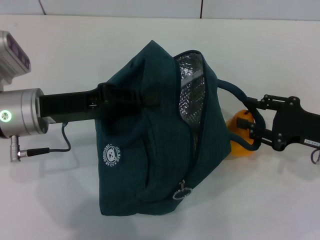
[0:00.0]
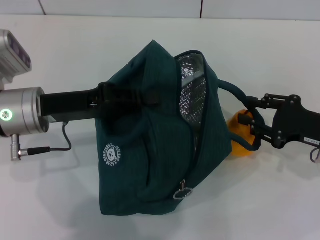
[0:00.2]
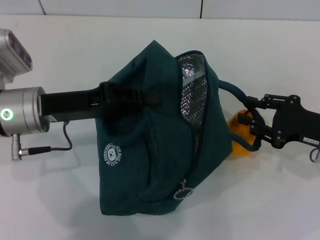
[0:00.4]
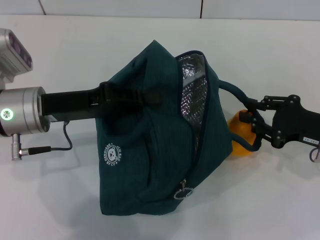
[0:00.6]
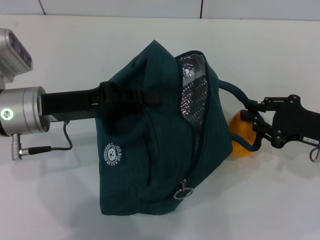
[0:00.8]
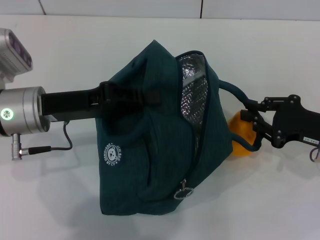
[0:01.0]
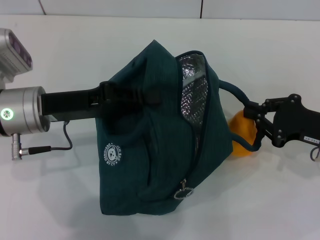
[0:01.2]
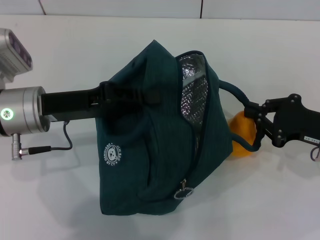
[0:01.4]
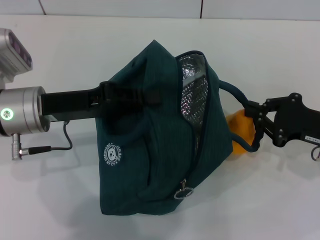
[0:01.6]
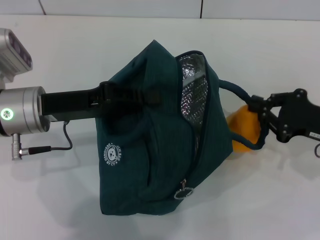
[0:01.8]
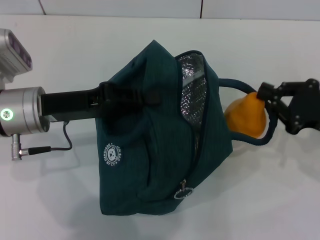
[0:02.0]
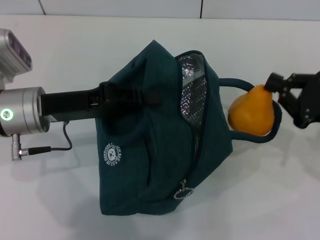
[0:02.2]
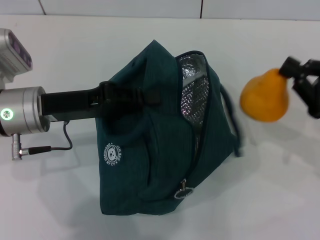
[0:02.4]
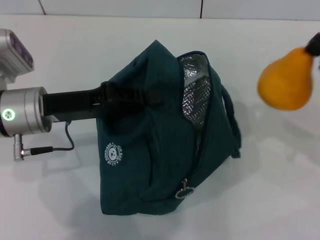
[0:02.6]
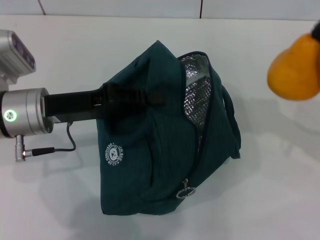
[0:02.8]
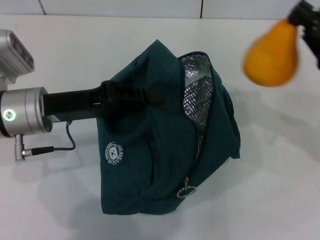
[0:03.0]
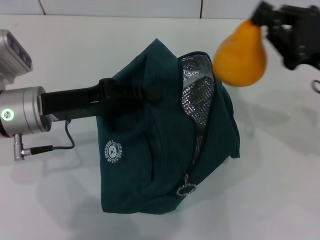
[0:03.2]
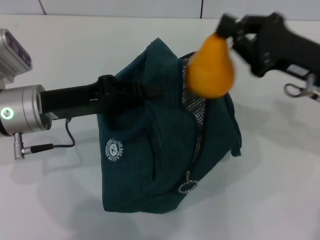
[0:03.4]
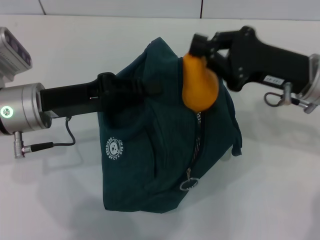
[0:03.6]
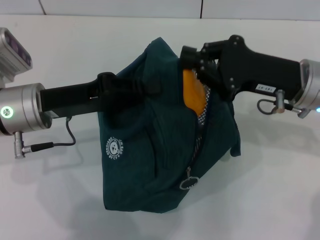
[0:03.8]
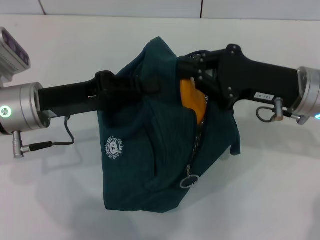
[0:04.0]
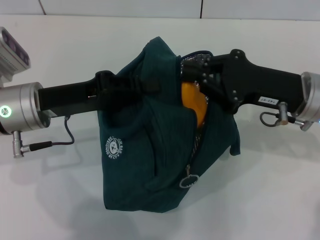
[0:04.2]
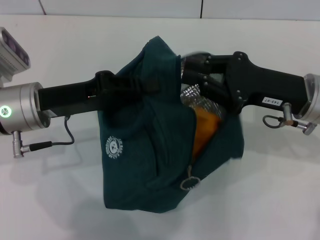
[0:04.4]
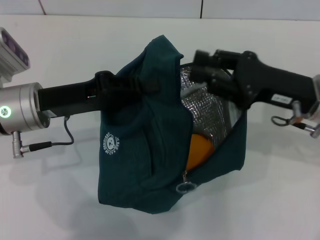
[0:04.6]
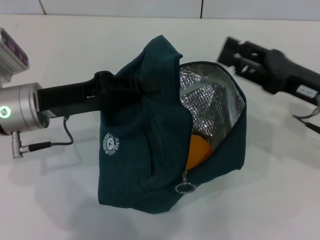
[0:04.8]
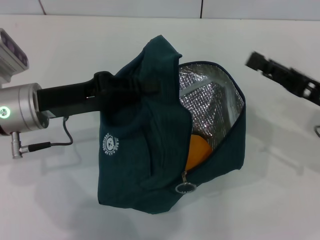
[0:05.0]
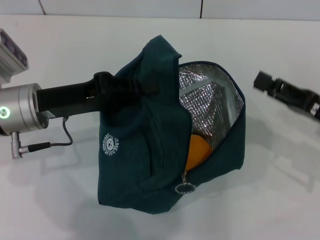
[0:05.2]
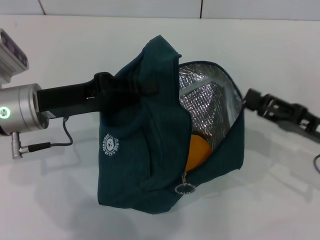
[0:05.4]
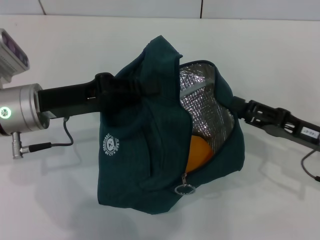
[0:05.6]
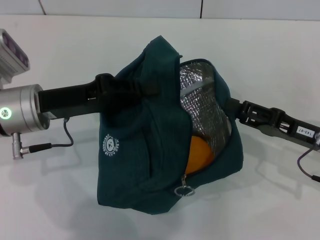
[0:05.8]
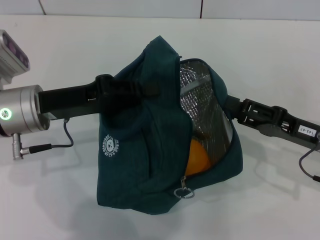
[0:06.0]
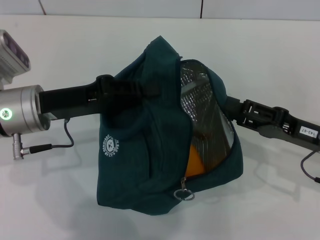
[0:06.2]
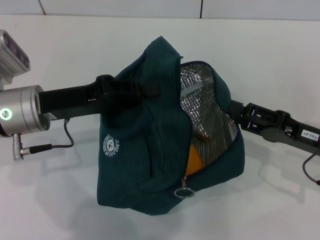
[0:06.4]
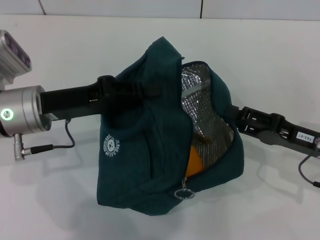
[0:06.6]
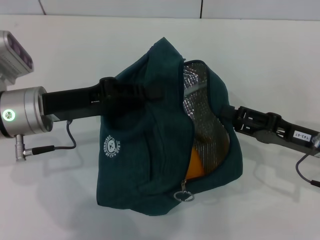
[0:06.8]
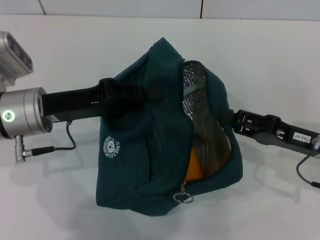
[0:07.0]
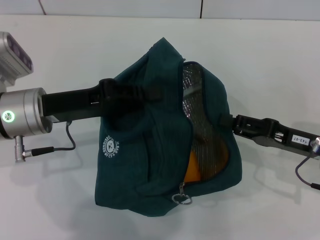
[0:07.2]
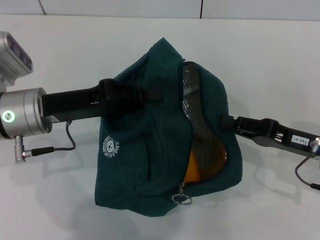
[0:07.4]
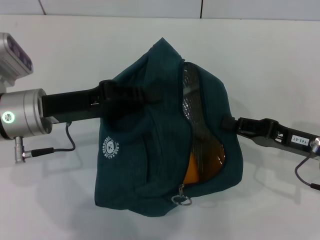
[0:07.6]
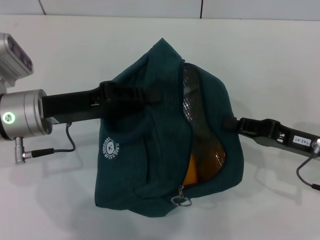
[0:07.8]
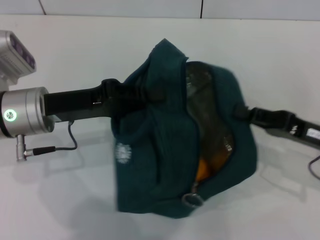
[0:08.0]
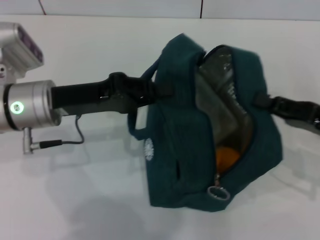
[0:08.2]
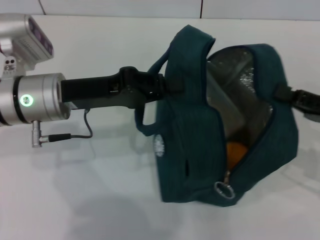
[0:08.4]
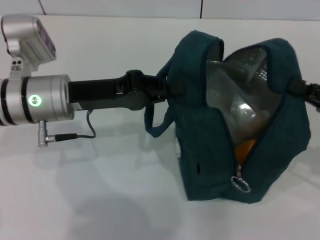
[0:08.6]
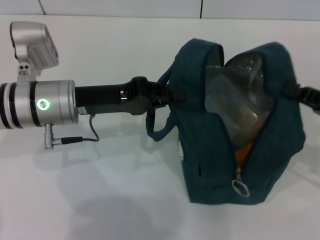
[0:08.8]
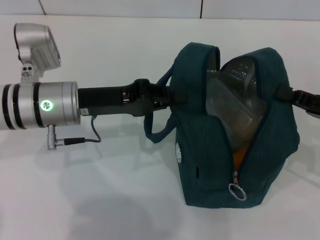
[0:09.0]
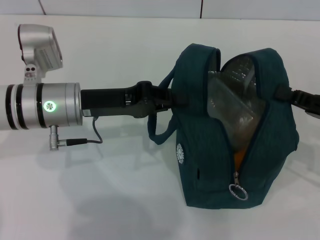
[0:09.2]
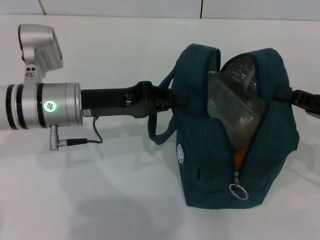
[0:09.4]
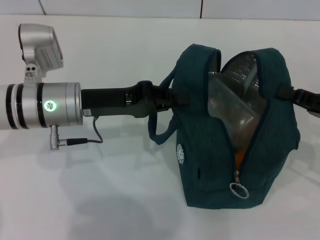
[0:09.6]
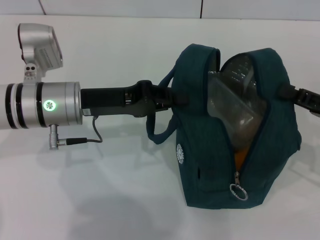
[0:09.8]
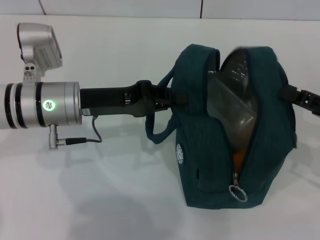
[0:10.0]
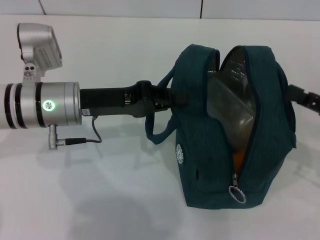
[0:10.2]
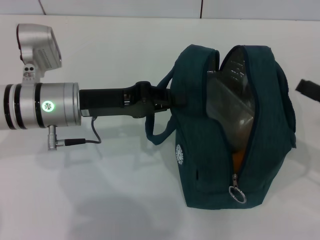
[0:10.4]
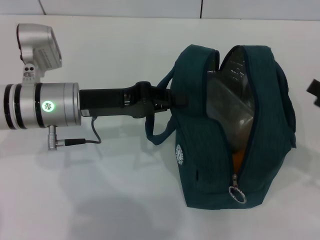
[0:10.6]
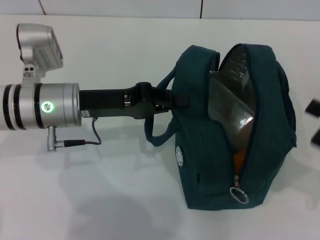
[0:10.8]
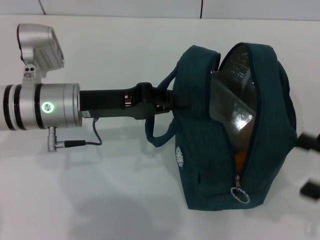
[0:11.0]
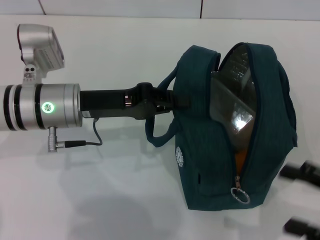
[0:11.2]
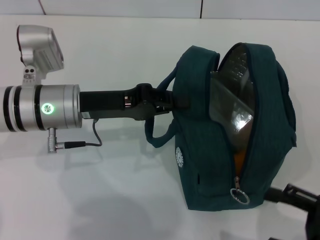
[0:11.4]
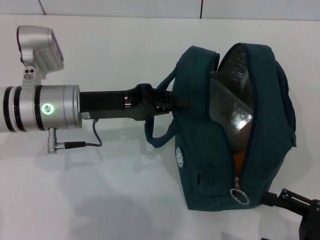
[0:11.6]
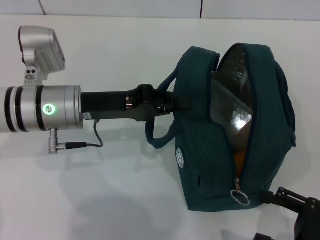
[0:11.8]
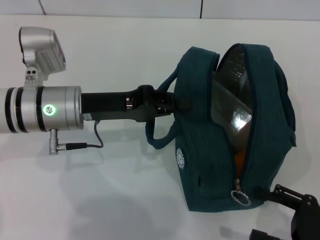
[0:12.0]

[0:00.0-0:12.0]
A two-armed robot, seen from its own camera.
Step, 0:04.6 to 0:10.2: Hold the lunch bag with your right hand.
0:00.0 to 0:01.6: The right gripper closes.
0:01.6 to 0:03.0: The right gripper is displaced upward by approximately 5 cm.
0:03.0 to 0:04.4: The right gripper shifts some 10 cm to the left.
0:04.4 to 0:06.0: The right gripper moves downward and to the right, about 10 cm, and opens up.
0:06.0 to 0:07.6: The right gripper closes its fingers.
0:07.6 to 0:09.0: The right gripper moves to the right, some 5 cm.
0:09.0 to 0:10.4: The right gripper opens.
0:10.4 to 0:12.0: The right gripper shifts about 10 cm backward and downward.

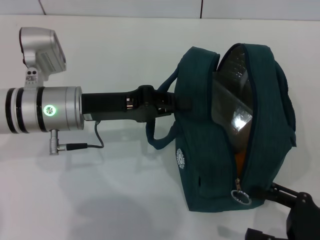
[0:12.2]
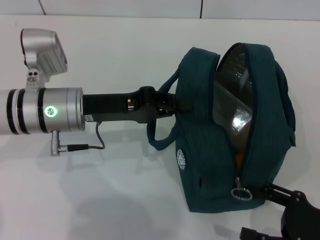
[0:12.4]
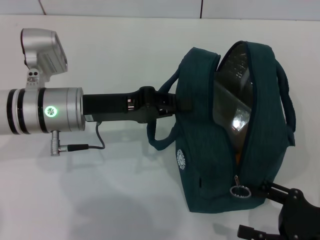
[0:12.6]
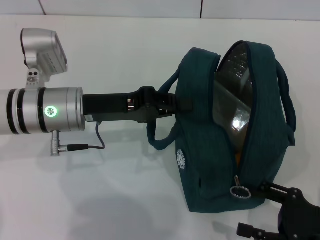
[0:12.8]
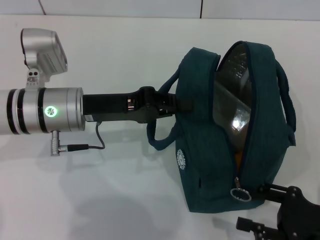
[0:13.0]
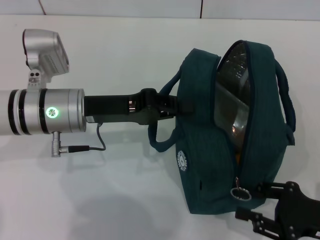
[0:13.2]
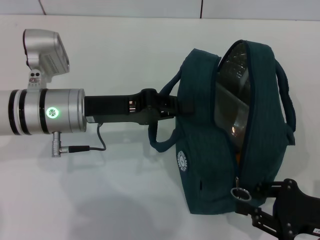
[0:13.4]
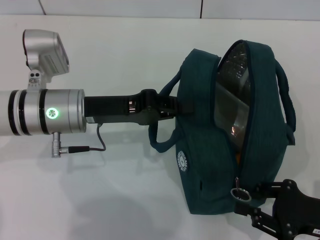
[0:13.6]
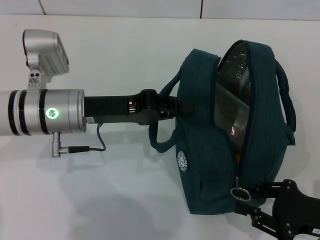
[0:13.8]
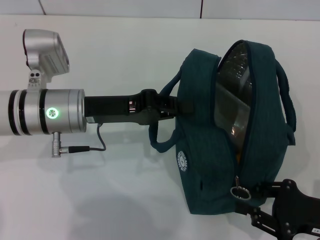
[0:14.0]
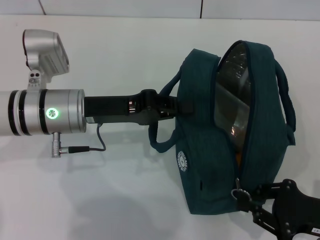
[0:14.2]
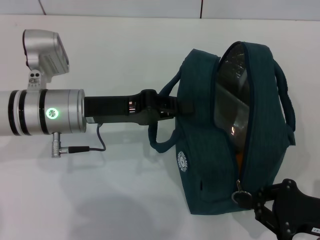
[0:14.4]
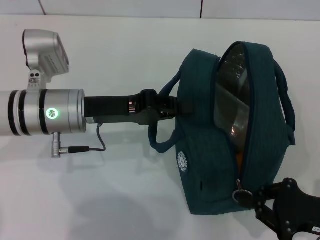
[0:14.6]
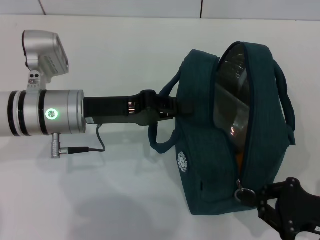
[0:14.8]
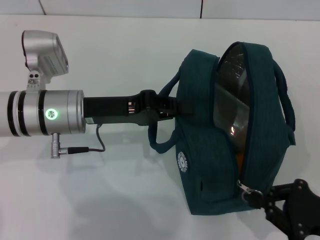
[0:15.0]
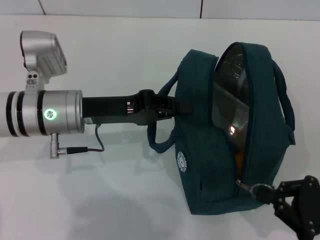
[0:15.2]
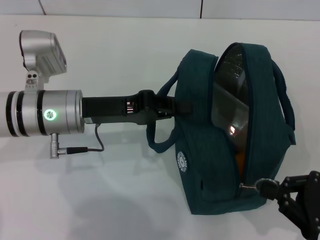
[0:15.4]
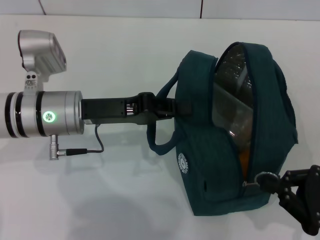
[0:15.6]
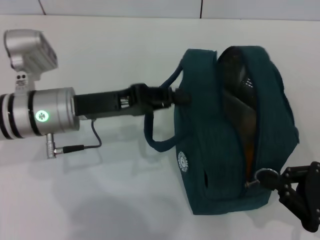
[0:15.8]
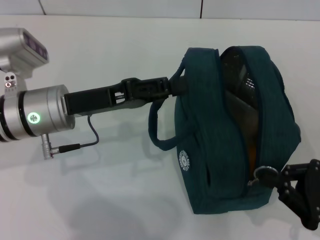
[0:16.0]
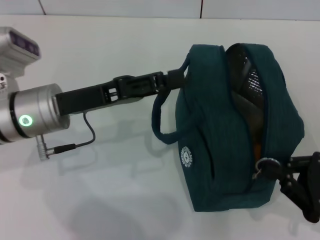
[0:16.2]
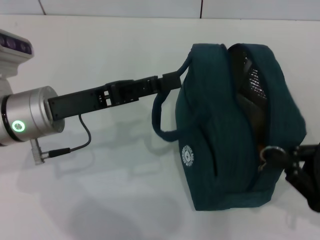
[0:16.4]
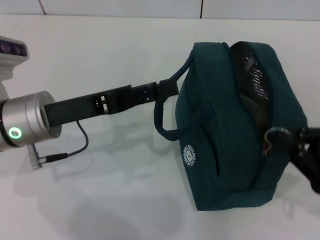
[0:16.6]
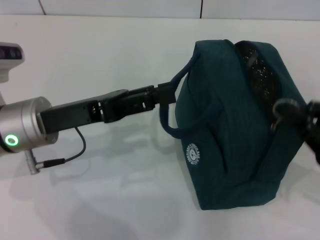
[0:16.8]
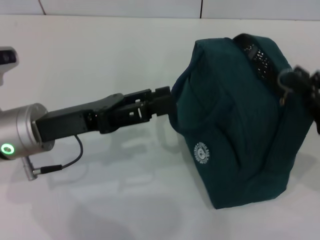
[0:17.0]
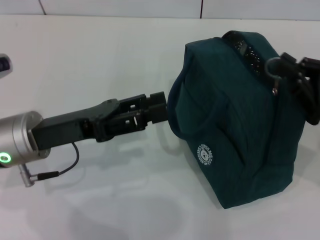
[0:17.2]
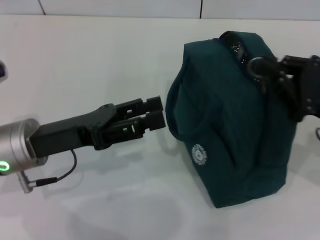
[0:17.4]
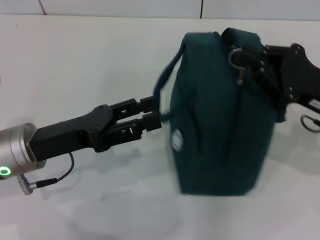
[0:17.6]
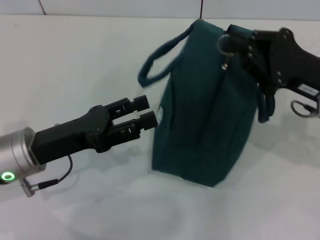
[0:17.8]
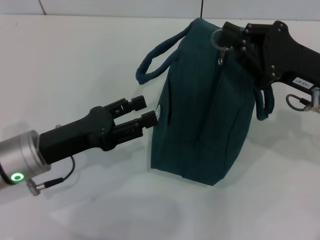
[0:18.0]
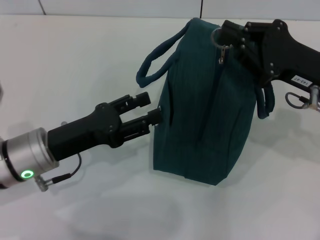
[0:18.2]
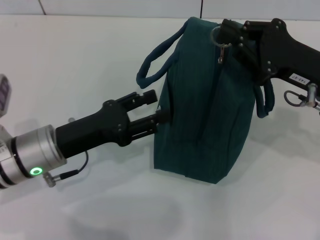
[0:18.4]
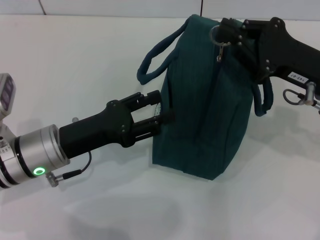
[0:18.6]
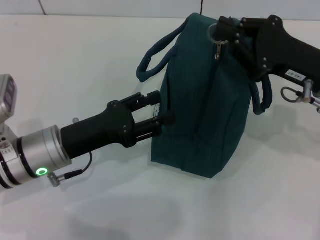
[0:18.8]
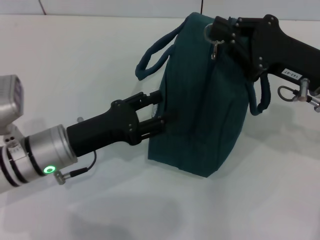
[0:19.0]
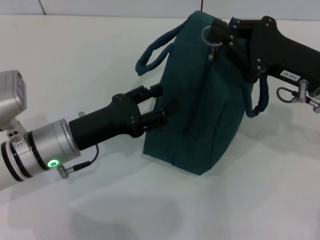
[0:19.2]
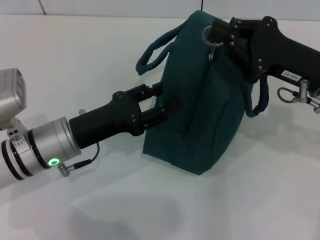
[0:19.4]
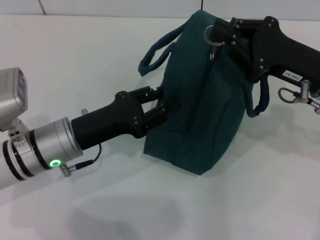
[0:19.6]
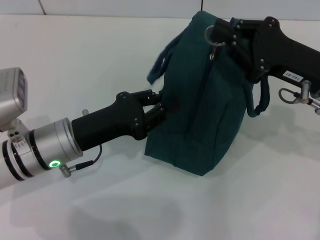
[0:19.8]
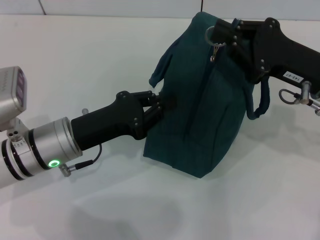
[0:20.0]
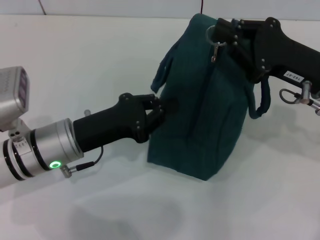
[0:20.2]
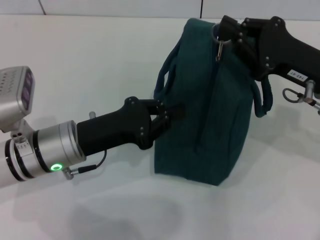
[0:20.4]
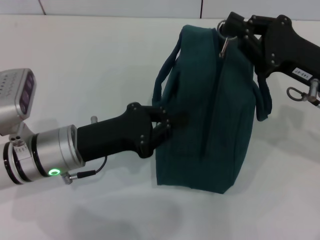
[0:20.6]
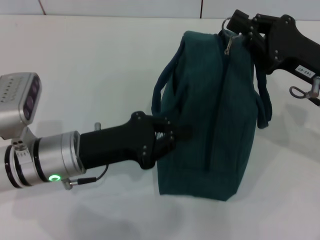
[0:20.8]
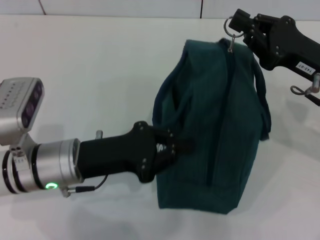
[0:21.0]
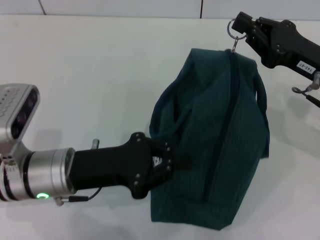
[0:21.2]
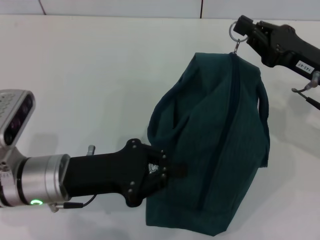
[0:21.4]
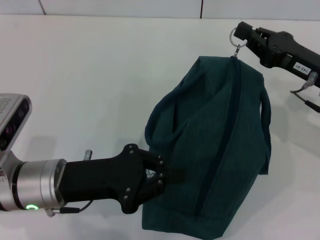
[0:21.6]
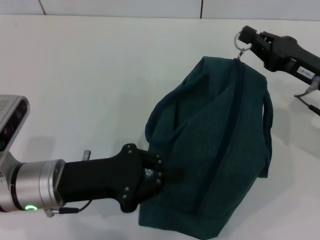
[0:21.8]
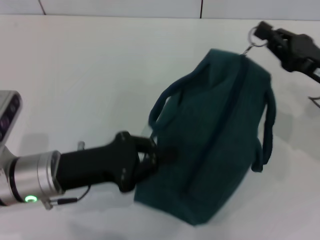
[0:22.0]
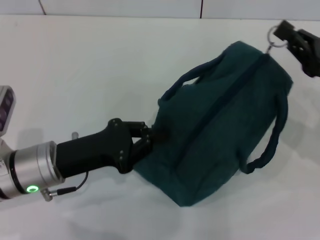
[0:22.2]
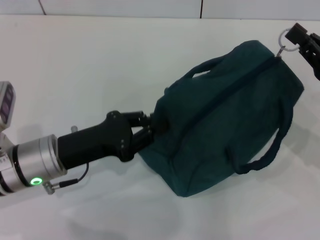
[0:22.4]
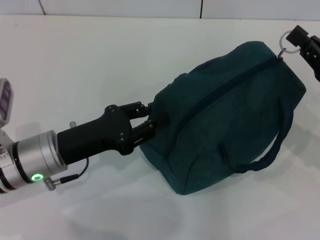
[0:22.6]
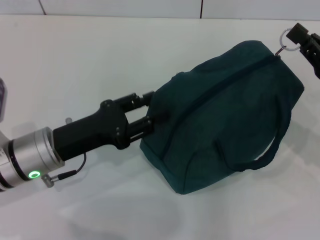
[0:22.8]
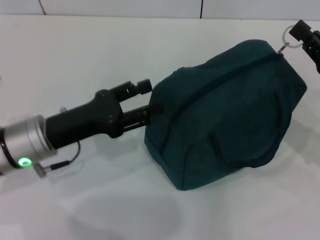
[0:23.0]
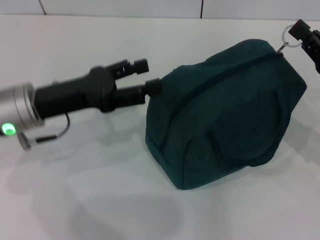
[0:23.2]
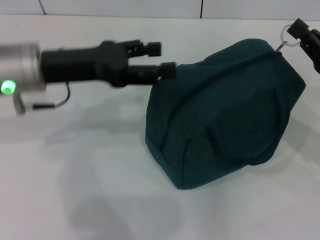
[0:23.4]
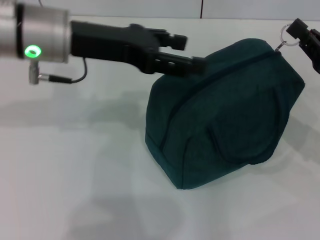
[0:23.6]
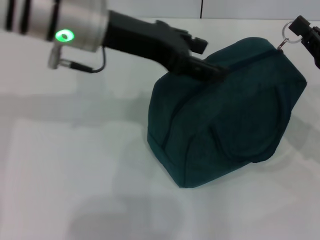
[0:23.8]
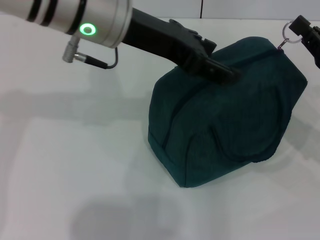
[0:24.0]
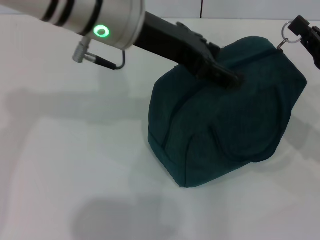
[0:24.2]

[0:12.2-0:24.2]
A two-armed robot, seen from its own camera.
Step, 0:12.2 to 0:16.0: Hold the lunch bag with your left hand.
0:12.2 to 0:13.8: The right gripper closes.
0:13.8 to 0:15.2: There are only small adjustments of the grippers.
0:15.2 to 0:16.6: The left gripper opens its fingers.
0:16.6 to 0:18.2: The right gripper travels forward, to the left and upward by some 15 cm. The left gripper is displaced downward by some 5 cm.
0:18.2 to 0:19.8: The grippers move only a little.
0:19.8 to 0:21.2: The left gripper closes up.
0:21.2 to 0:22.6: The right gripper ends up some 5 cm from where it was.
0:22.6 to 0:24.2: The left gripper is displaced upward, to the right and forward by roughly 25 cm, and opens its fingers.
